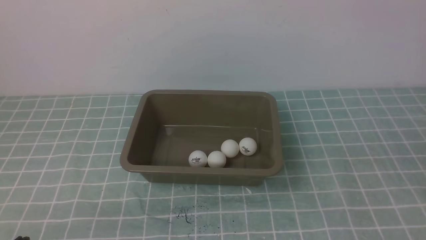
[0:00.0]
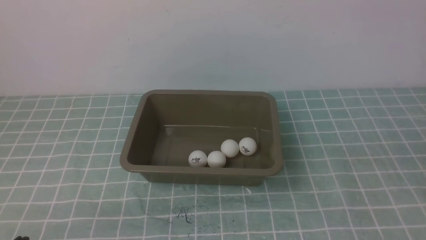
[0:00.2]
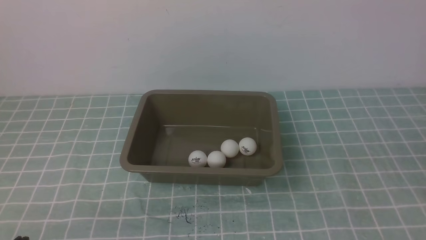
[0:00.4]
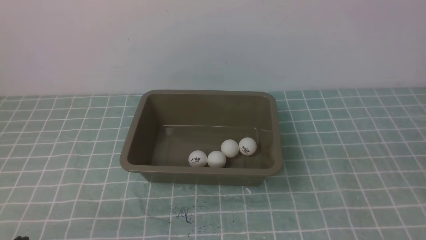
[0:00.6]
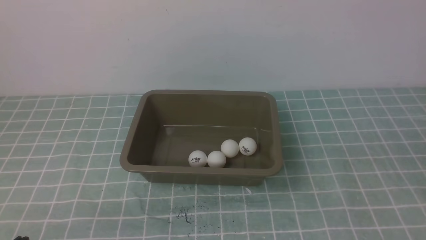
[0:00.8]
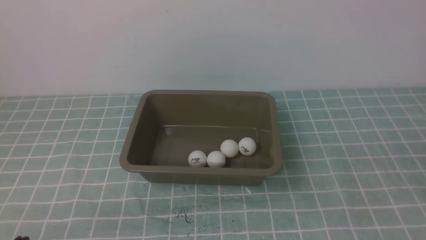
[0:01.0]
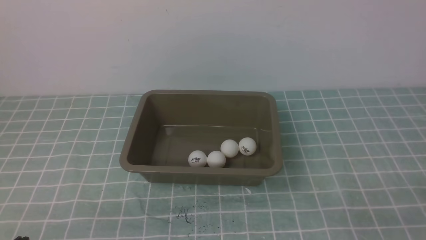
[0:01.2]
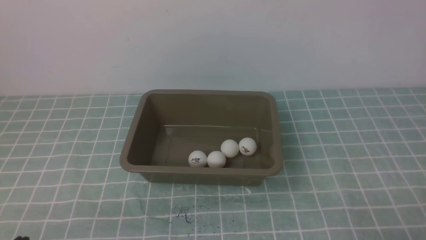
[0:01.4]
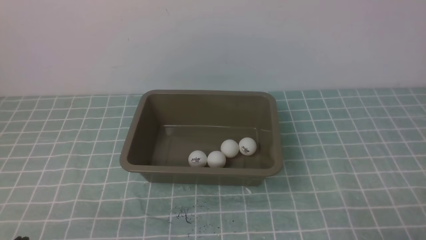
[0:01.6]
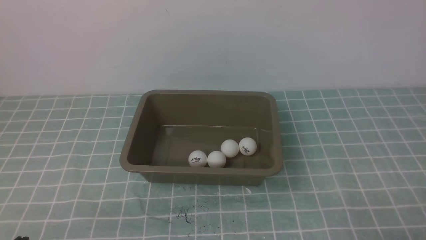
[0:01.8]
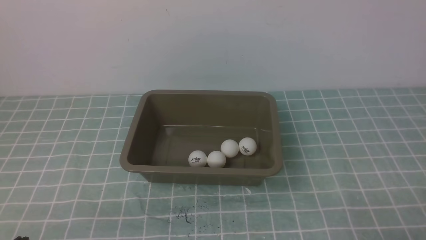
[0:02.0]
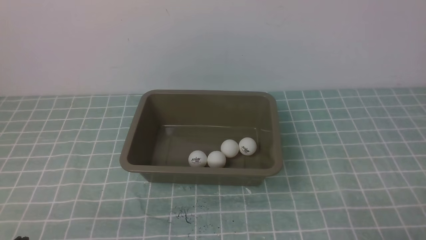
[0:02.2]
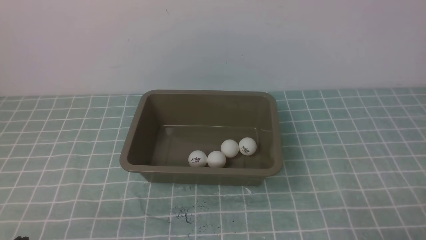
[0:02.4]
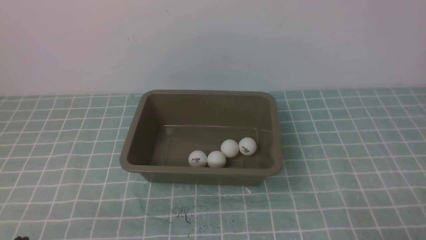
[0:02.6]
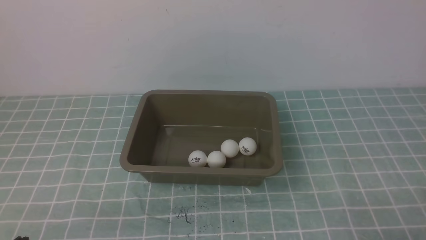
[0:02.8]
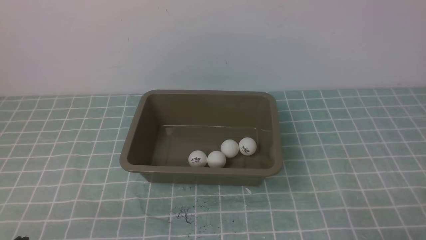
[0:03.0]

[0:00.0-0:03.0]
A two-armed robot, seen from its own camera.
0:01.6 to 0:03.0: Both grippers stay about where they are.

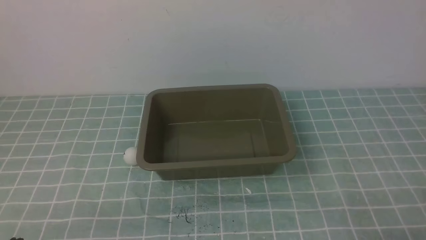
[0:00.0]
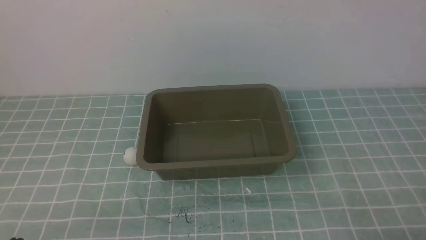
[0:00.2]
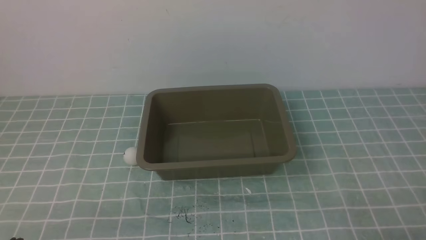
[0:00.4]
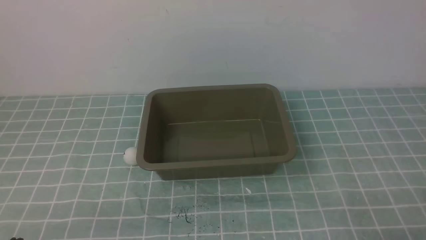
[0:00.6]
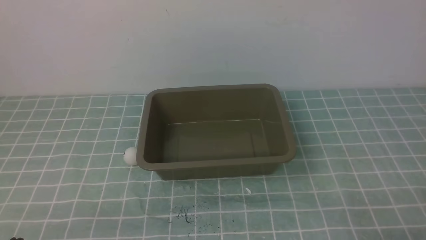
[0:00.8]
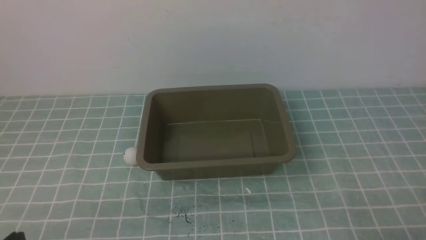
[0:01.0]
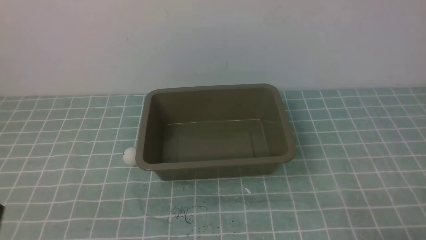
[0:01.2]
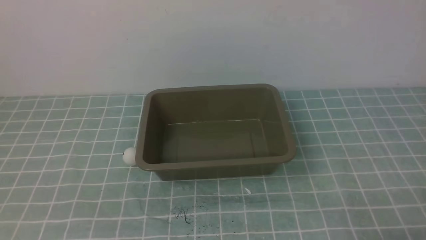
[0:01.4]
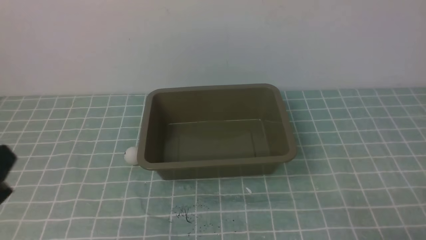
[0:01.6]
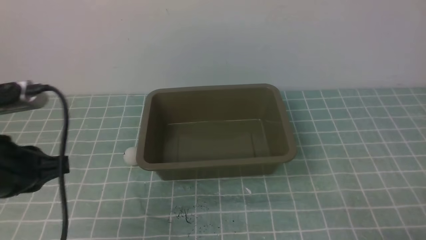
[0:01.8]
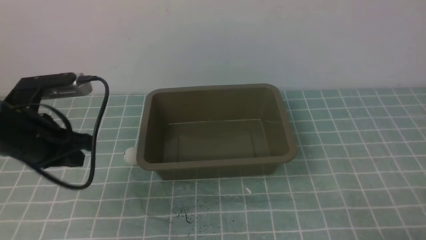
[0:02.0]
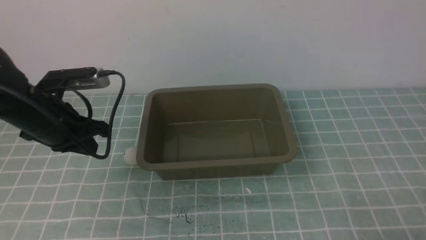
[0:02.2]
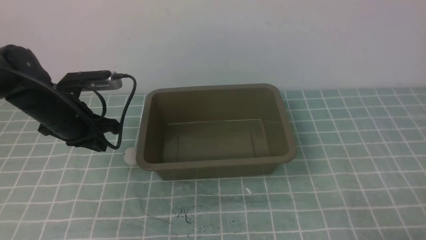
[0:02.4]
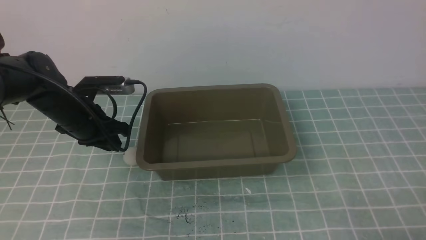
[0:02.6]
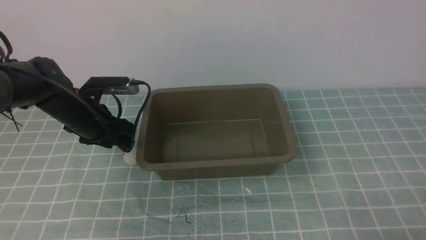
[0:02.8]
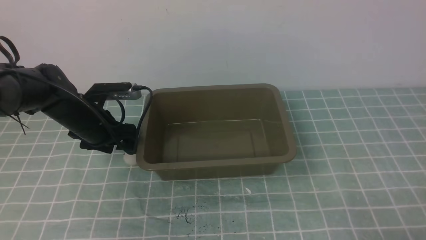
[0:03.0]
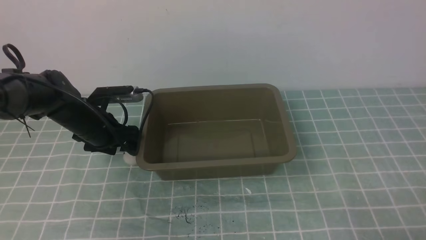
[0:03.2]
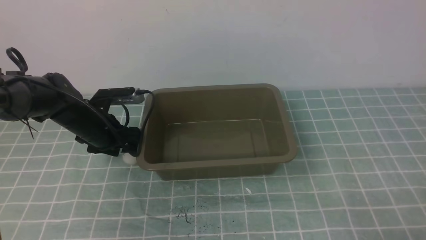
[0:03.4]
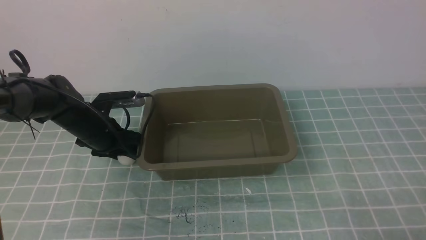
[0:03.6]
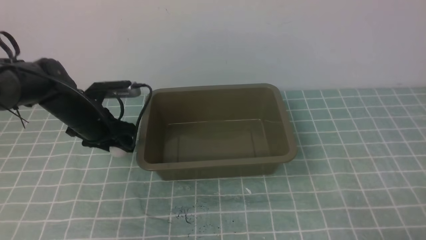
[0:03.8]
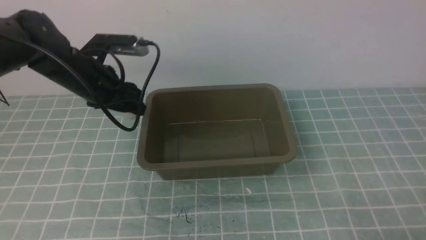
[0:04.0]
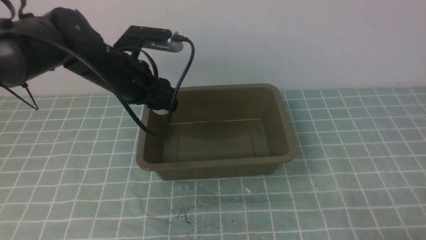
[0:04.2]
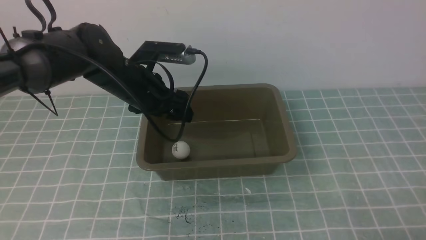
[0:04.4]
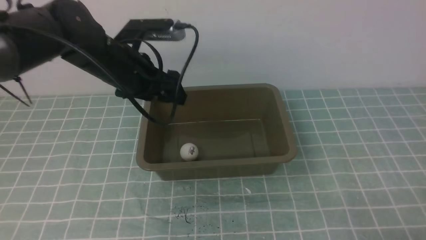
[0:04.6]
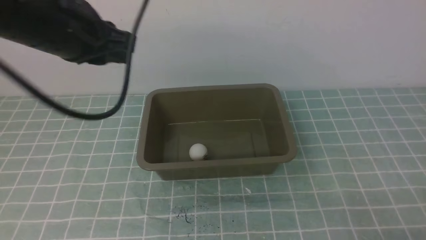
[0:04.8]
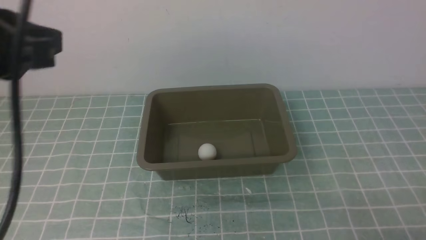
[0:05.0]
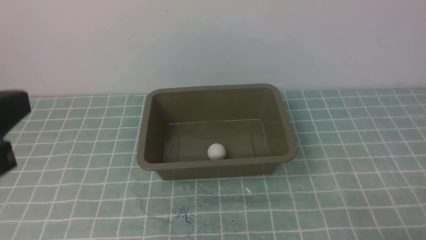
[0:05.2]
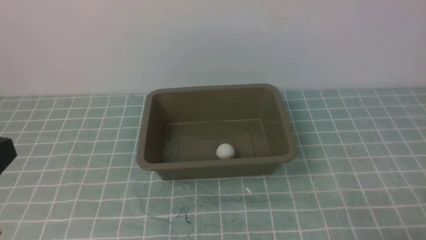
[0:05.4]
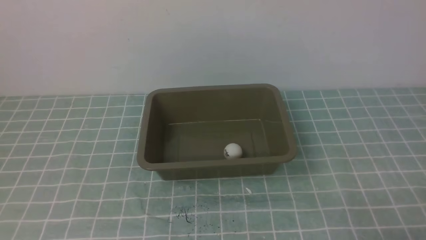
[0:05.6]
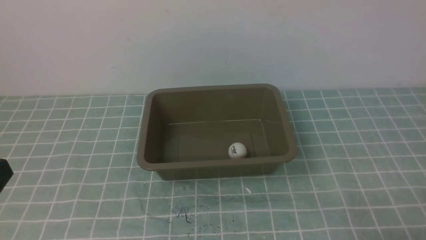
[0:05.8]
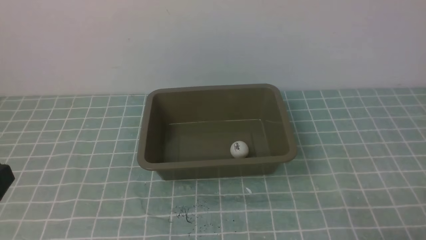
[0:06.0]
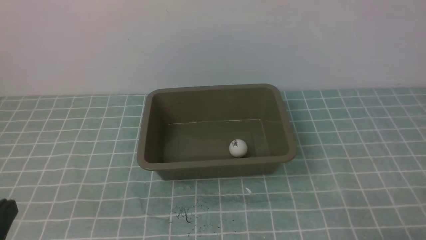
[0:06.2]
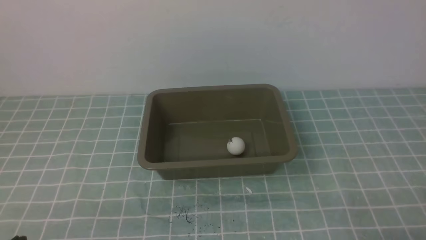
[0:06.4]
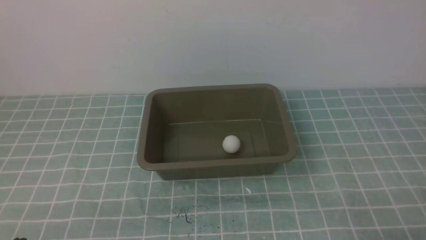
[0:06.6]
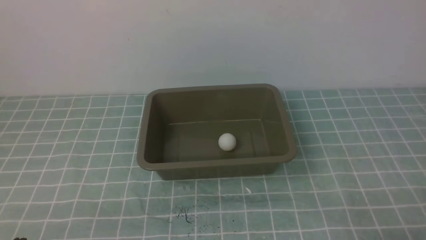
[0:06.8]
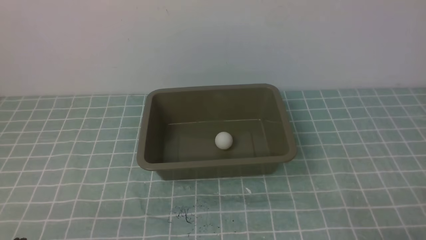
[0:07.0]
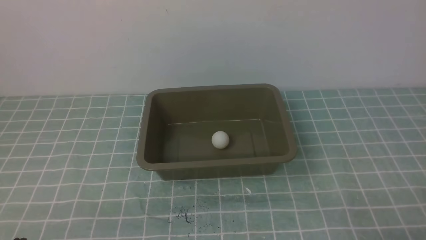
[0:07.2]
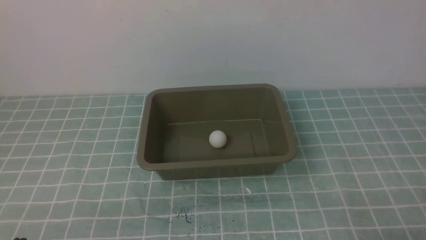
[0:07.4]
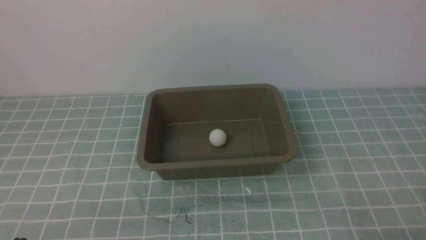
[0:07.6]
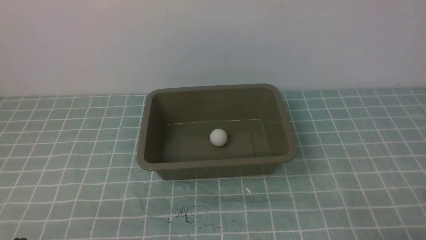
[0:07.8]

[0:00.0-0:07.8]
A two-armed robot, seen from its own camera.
Step, 0:00.0 to 0:03.8: use the left arm to clamp the table tennis ball closest to it.
Step, 0:04.0 to 0:04.2: use the left arm to put the table tennis ball into the box.
0:01.6 to 0:03.2: The left gripper heads forward, covering roughly 30 cm, and opens its fingers.
0:03.2 to 0:04.6: The left gripper heads upward and to the right, covering roughly 15 cm.
0:04.6 to 0:06.2: The left gripper is displaced backward by about 30 cm, and closes.
0:06.2 to 0:07.8: The left gripper is displaced downward by approximately 10 cm.
